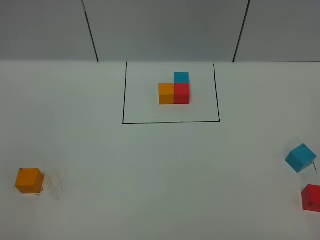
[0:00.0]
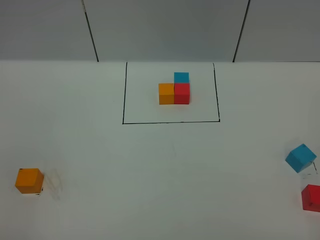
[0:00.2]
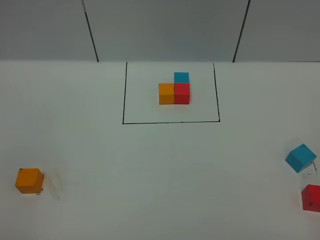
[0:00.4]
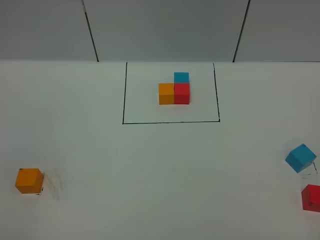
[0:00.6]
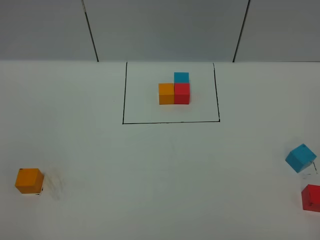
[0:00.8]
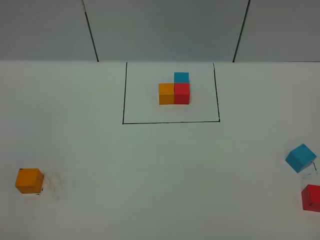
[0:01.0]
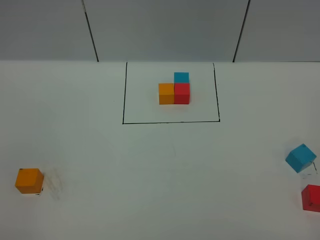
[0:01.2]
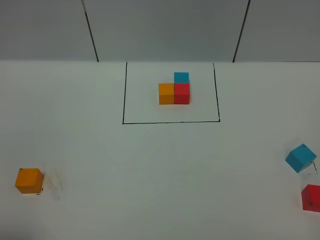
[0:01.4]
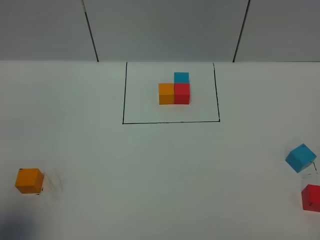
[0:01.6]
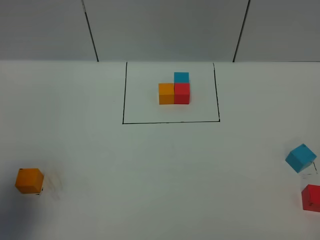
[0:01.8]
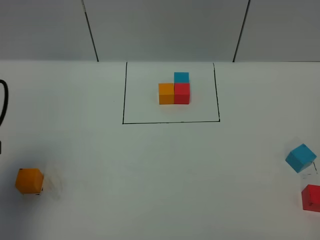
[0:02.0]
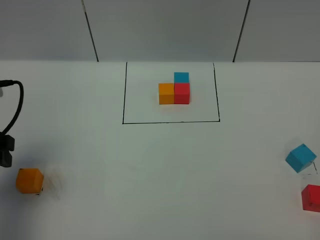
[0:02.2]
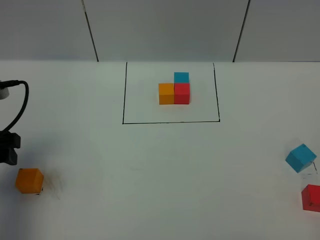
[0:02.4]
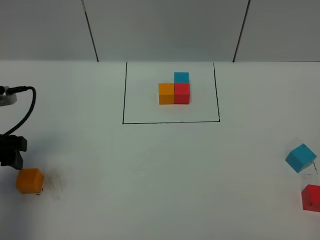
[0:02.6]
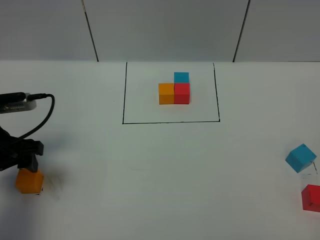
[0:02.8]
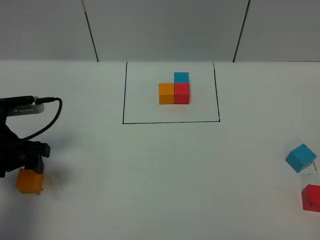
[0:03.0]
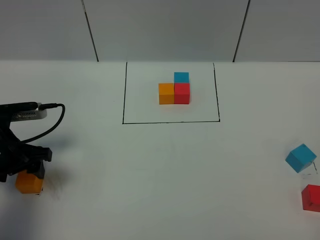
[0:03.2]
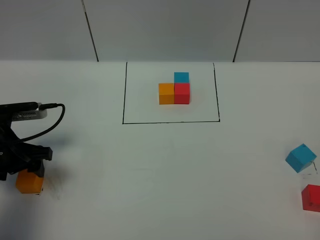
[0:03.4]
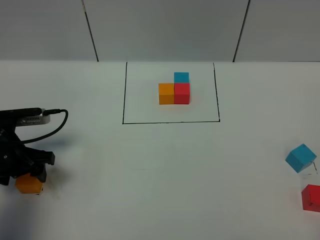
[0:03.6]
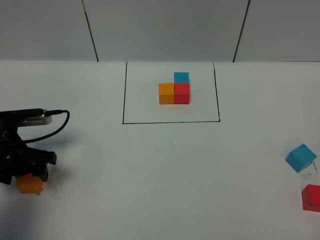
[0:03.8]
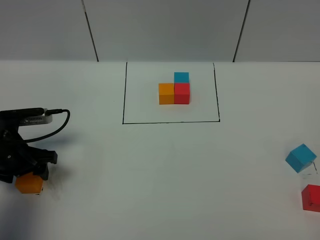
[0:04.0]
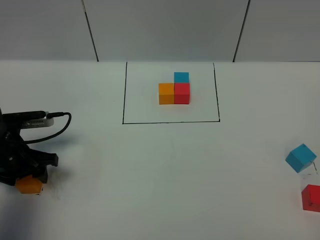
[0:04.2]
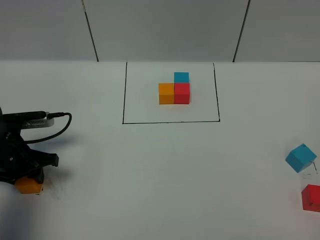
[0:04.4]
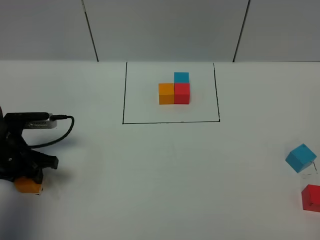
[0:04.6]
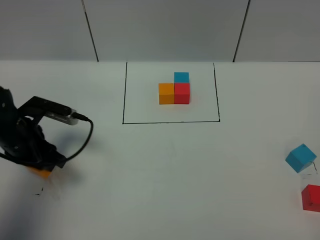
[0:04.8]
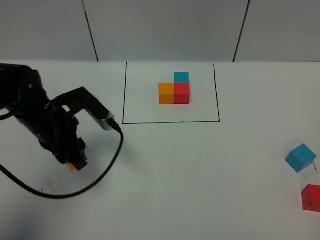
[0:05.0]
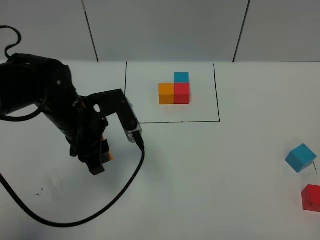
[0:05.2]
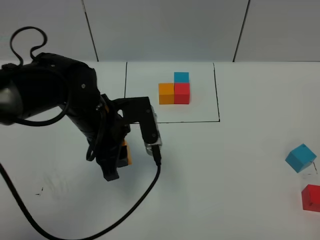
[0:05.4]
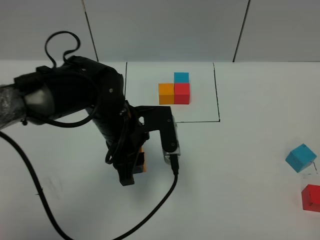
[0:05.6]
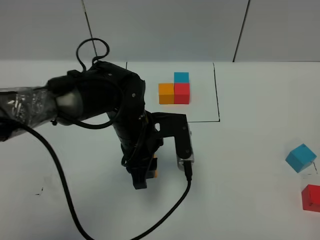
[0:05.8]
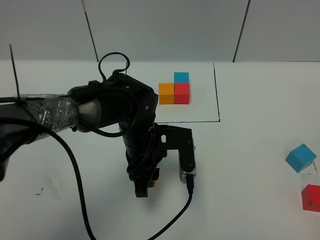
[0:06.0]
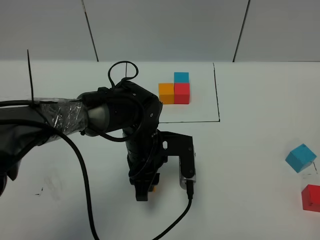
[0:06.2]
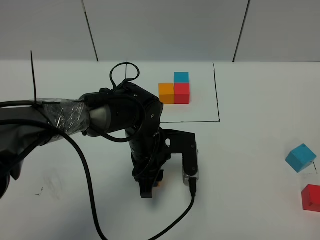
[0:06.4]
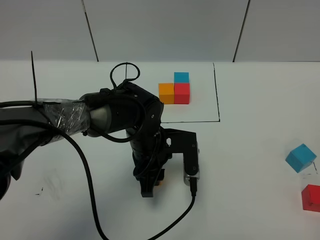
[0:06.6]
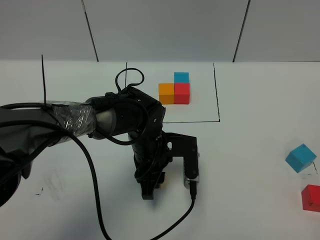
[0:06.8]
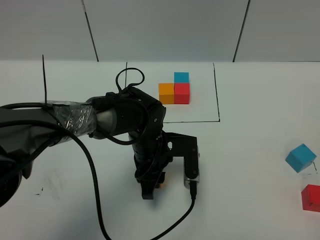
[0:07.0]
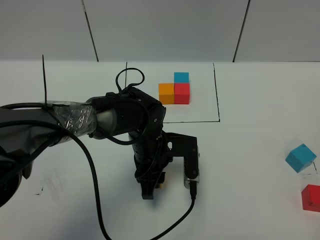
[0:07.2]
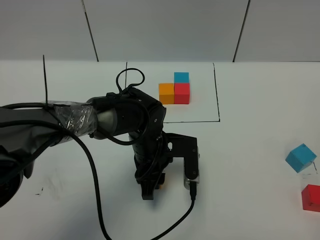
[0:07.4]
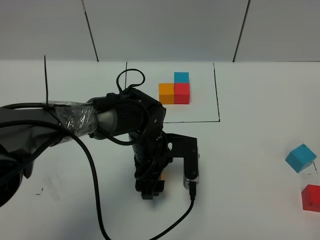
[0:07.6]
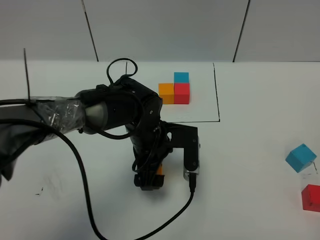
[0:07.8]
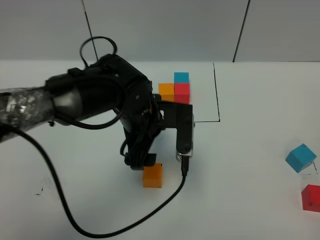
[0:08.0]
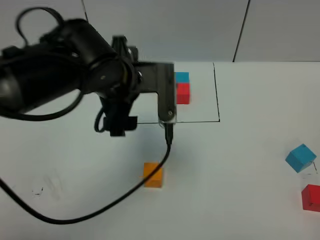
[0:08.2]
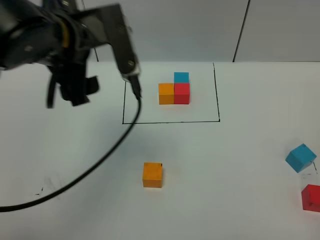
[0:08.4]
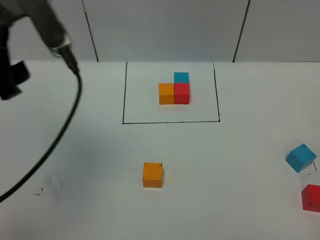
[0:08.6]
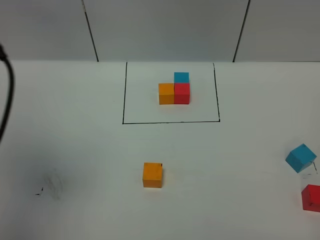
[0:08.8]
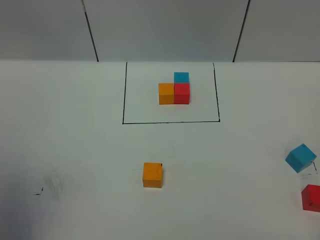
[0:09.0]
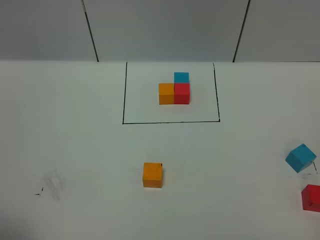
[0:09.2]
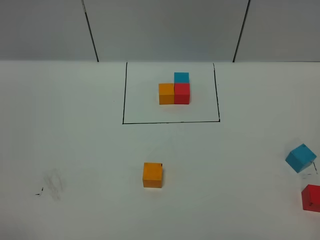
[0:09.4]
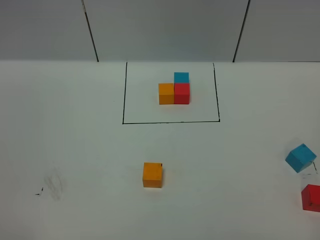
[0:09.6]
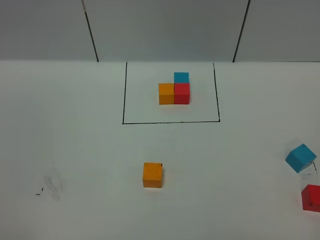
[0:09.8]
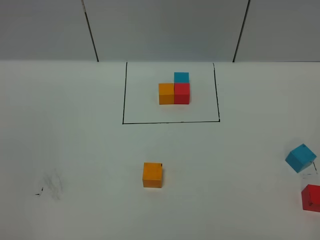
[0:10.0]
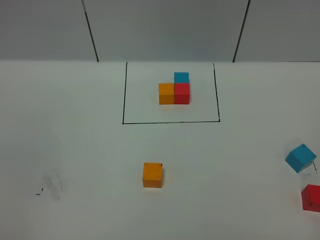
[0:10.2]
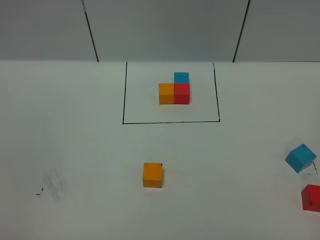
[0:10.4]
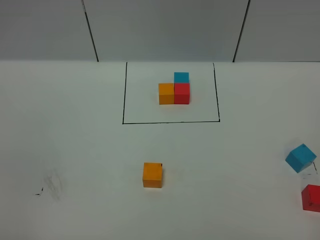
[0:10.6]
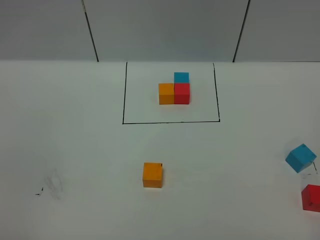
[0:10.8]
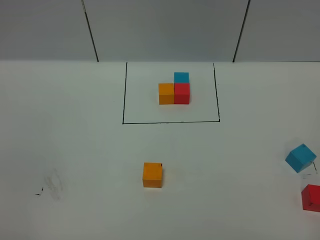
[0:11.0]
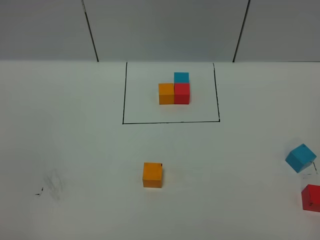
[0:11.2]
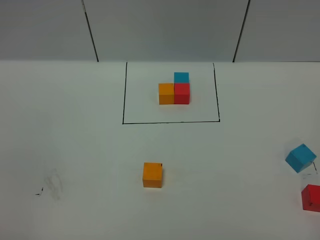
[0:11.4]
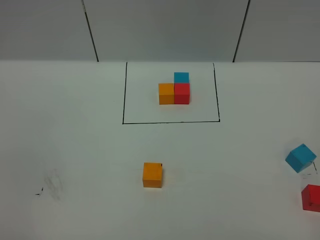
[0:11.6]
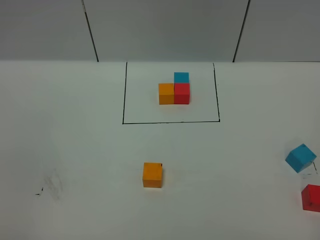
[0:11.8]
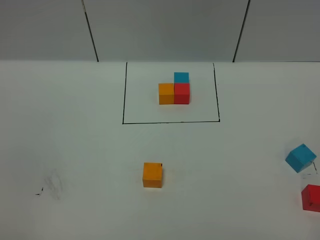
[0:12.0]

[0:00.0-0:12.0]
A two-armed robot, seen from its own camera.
Task of the whole recording: According to the building block template in front, assemble the scattered blocks together.
Step, 0:02.0 to 0:08.4: Put the orange cube in the center of the table.
0:00.0 to 0:01.6: The left gripper travels forward by roughly 10 cm.
0:01.6 to 0:03.0: The left gripper shifts roughly 20 cm forward and downward.
0:03.0 to 0:04.4: The left gripper goes some 5 cm downward, and closes.
0:04.4 to 0:06.0: The left gripper moves to the right, some 25 cm.
0:06.0 to 0:07.6: The left gripper opens.
0:07.6 to 0:09.0: The left gripper heads upward, to the left and backward, covering approximately 50 cm.
0:09.0 to 0:10.4: The left gripper heads downward and backward, covering approximately 25 cm.

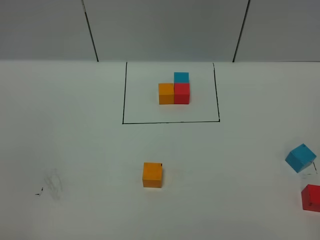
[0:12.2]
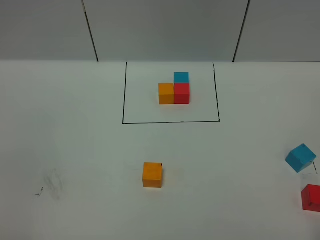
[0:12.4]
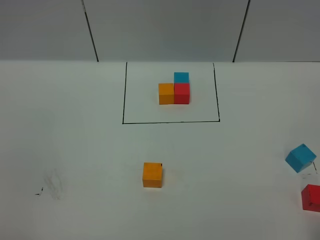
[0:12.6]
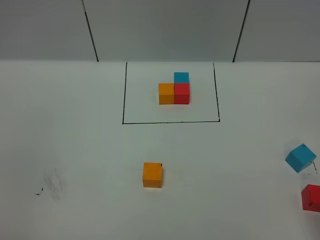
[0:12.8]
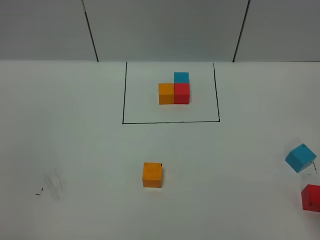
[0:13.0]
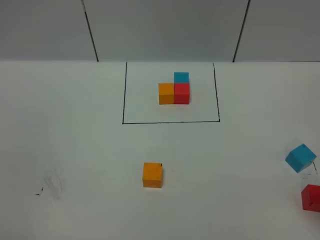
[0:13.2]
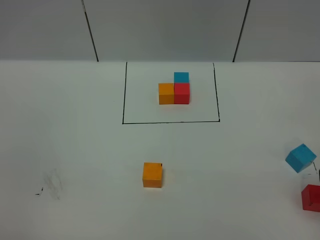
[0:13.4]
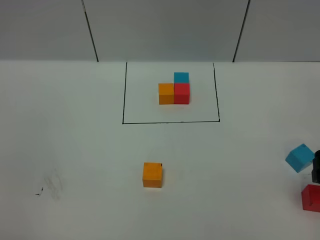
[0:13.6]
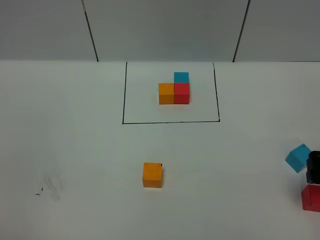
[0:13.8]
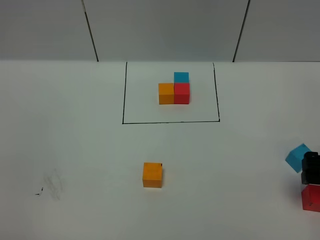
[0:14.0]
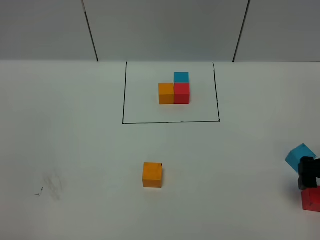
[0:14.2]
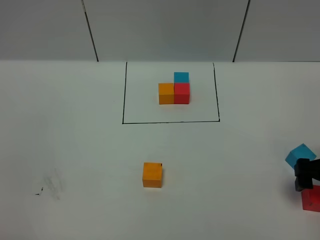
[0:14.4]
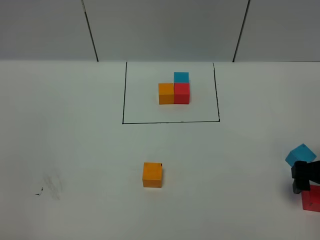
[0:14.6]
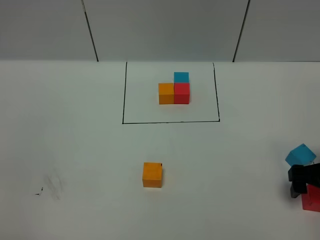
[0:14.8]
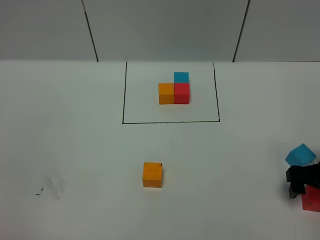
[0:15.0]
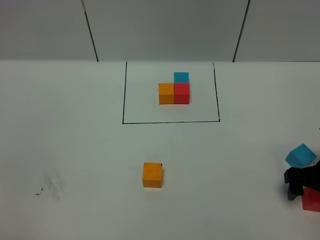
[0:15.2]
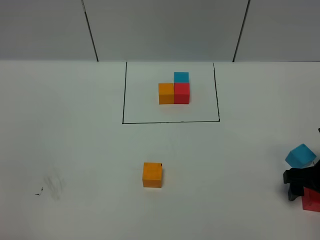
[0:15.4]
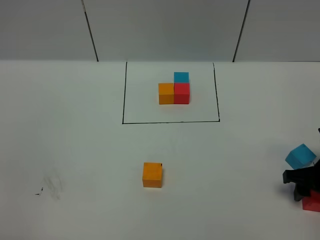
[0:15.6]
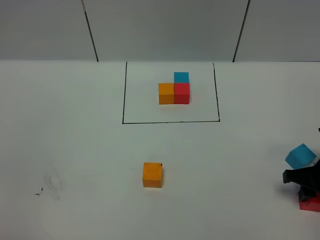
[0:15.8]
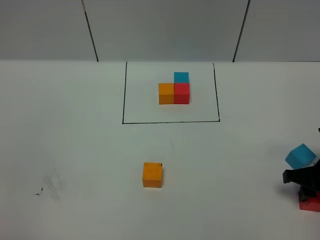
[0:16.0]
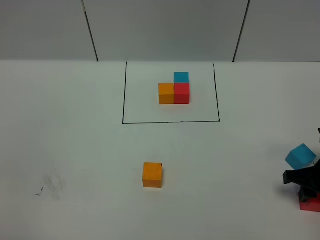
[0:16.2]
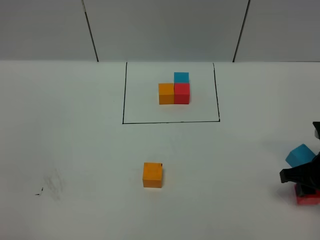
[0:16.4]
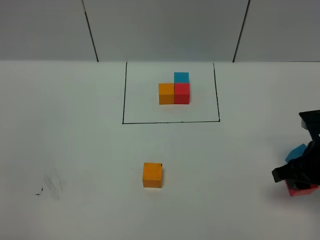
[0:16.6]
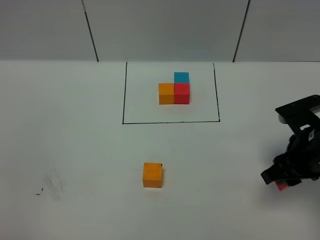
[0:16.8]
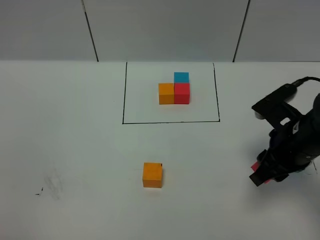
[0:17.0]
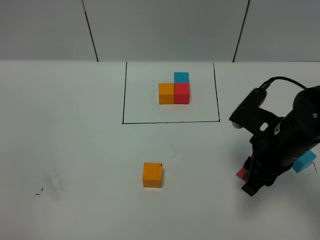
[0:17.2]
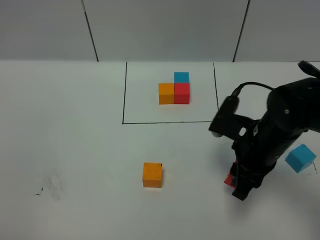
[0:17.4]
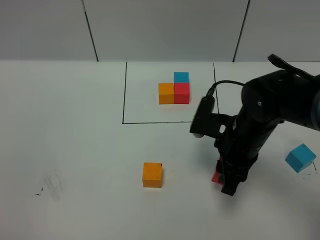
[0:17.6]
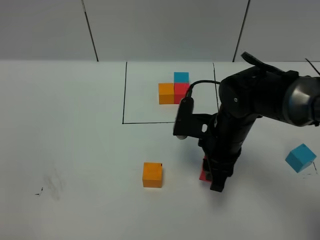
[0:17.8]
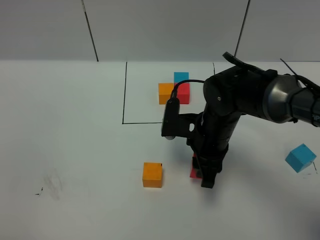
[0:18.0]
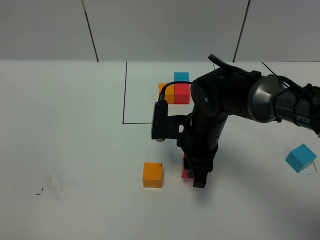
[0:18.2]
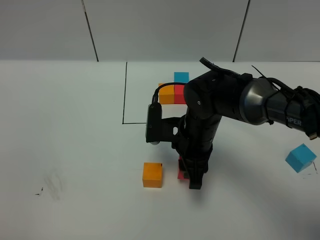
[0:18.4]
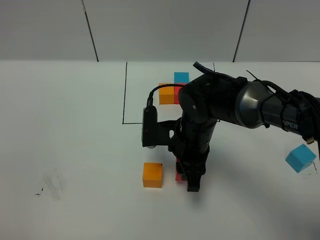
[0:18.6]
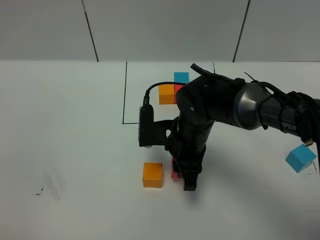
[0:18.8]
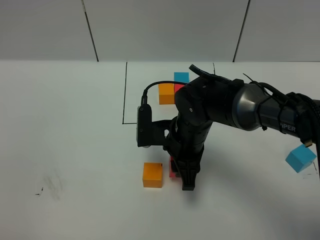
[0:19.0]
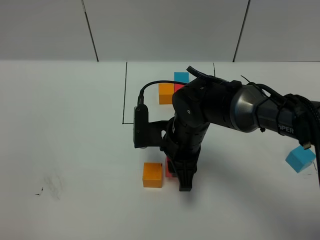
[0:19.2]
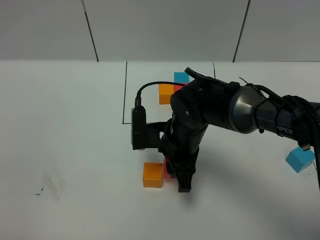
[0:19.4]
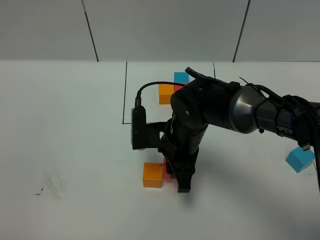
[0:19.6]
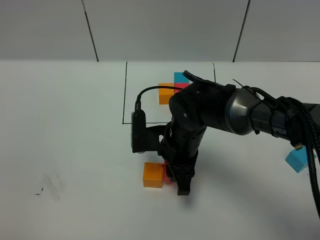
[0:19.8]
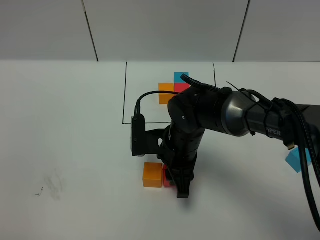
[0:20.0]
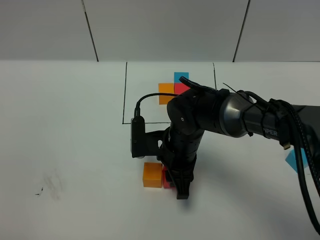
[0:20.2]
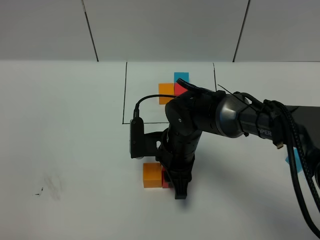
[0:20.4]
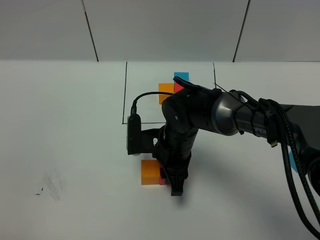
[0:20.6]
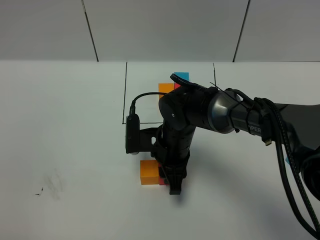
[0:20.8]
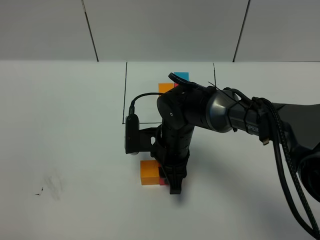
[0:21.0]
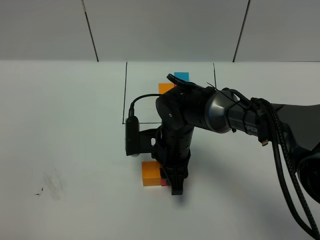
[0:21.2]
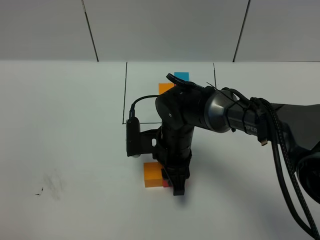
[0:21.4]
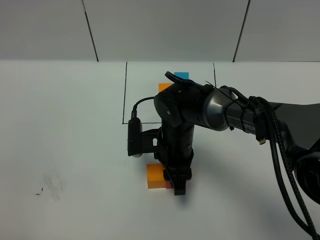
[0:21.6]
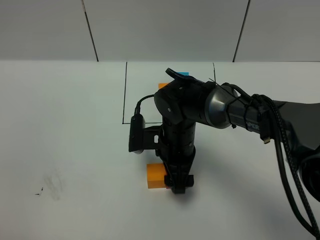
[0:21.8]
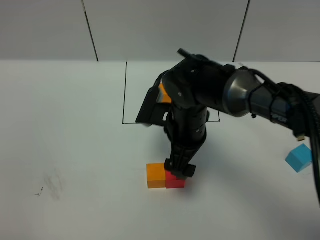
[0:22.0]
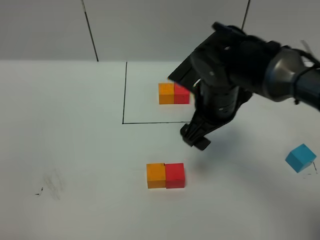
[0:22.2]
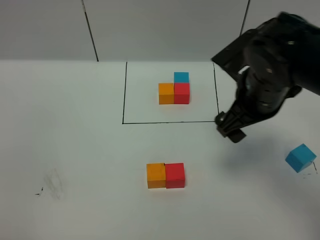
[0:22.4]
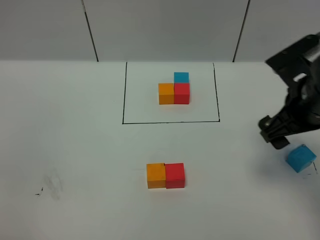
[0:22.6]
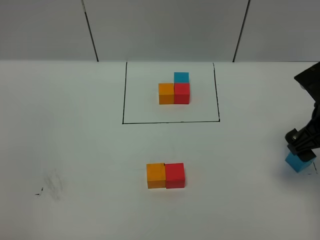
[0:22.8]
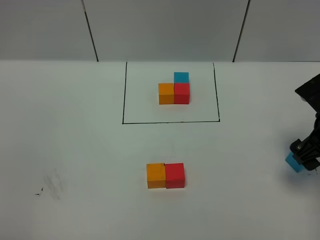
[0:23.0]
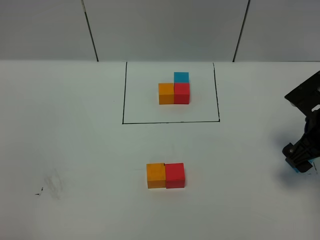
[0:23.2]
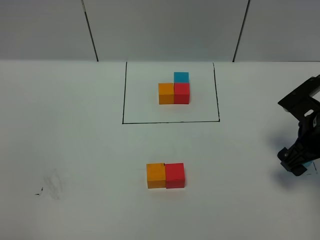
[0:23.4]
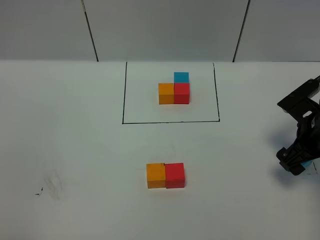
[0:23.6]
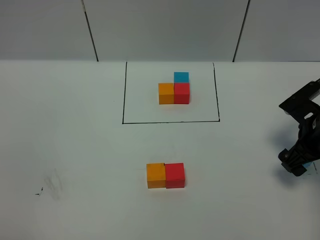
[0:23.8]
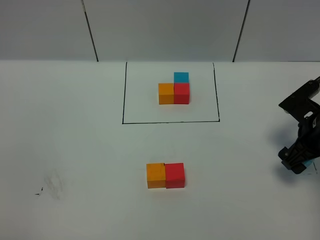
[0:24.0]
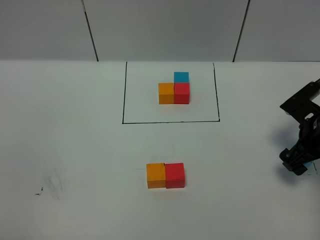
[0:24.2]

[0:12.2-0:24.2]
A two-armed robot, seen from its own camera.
Task of the whole recording: According to the building block template in front, assemble the scattered blocks together.
Step, 0:12.2 to 0:24.2: Put the red cube on the right of the orange cube.
0:12.2 to 0:13.8: The right gripper goes some 20 cm forward, and opens.
0:13.8 to 0:15.2: The right gripper moves downward, roughly 10 cm.
0:15.2 to 0:16.6: The right gripper goes roughly 5 cm upward, and closes its fingers.
0:16.6 to 0:18.2: The right gripper shifts about 20 cm to the left.
0:18.2 to 0:21.2: The grippers move only a little.
0:21.2 to 0:22.6: The right gripper goes some 25 cm to the right and upward, and opens.
0:22.6 to 0:24.2: The right gripper goes roughly 15 cm downward and to the right.
